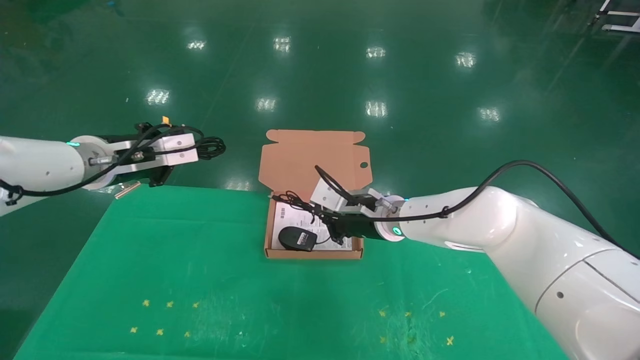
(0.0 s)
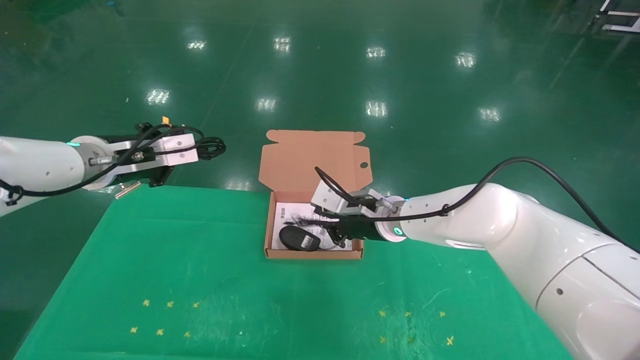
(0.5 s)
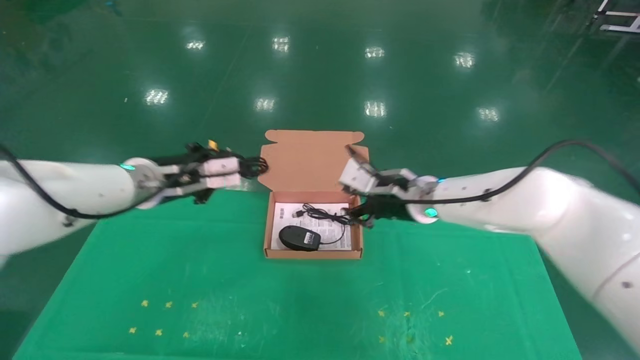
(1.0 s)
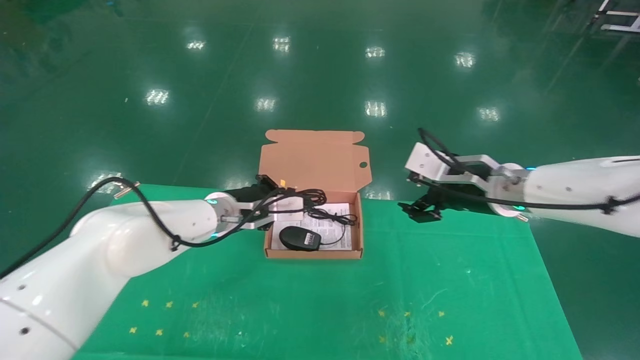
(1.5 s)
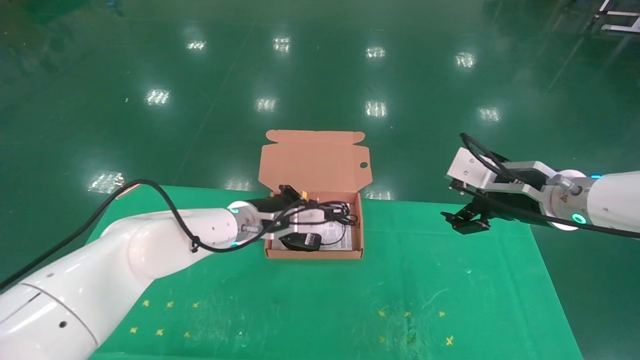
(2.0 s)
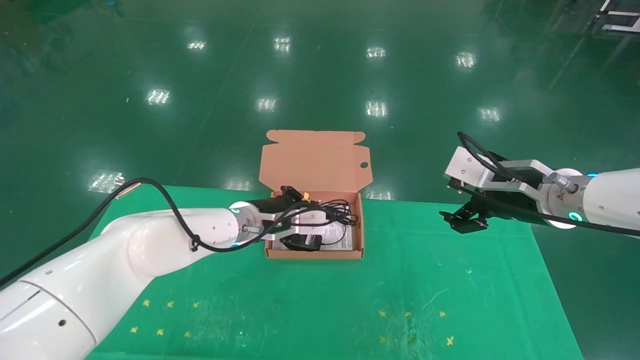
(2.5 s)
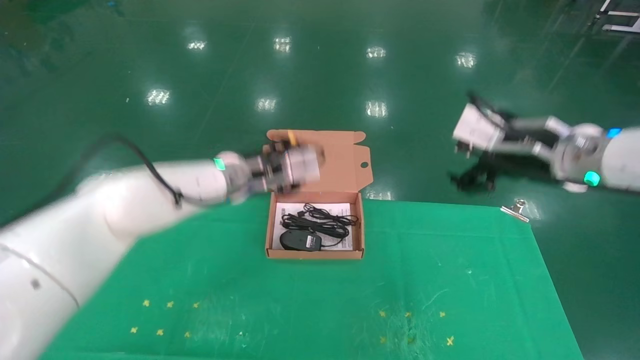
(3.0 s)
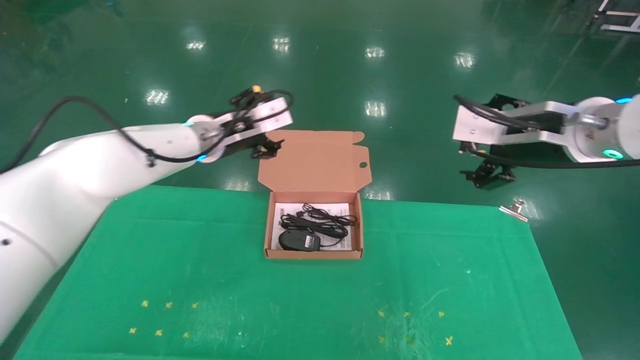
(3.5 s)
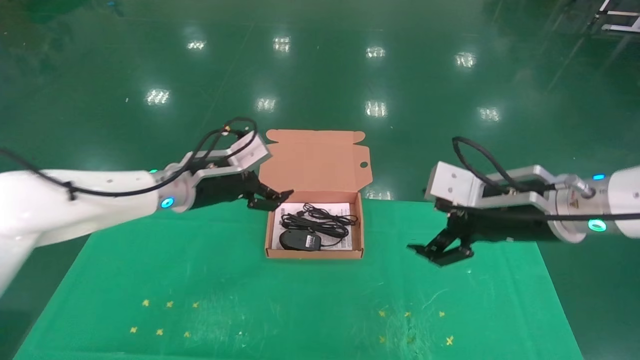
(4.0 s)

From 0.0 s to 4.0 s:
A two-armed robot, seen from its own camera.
Task of the whole recording: grasp data cable left put into box grasp mouse right put into box.
Step, from 0.0 s to 2.5 s: Place the mouse and power cord into the box.
From 0.0 s to 2.0 s: The right gripper is displaced to the right, backward and upward by about 25 cm, and opens its fingers. Meanwhile the left gripper goes some 20 cm to the right and downward.
From 2.0 s to 4.0 s: The left gripper moves upward and to the left, roughly 10 cm, and opens up.

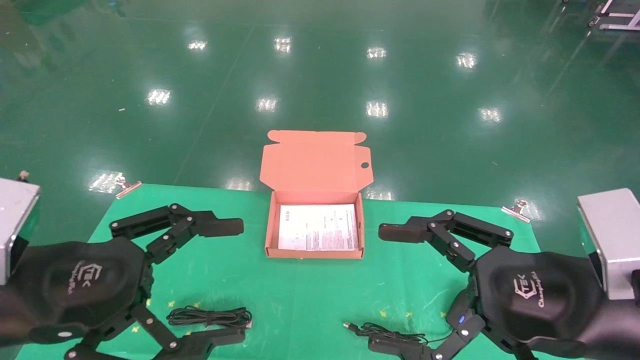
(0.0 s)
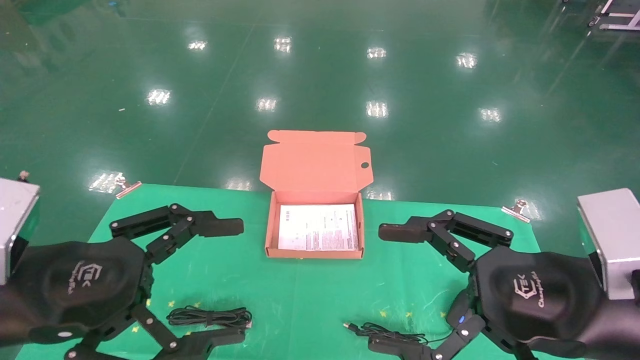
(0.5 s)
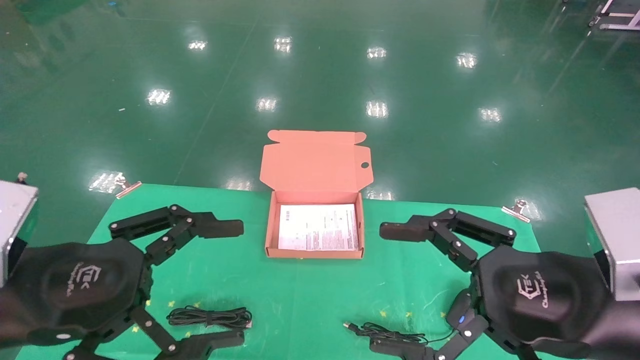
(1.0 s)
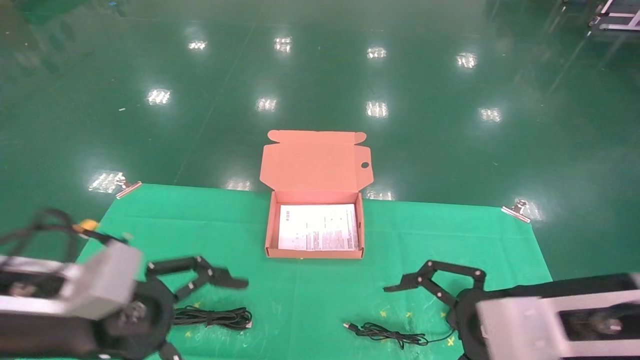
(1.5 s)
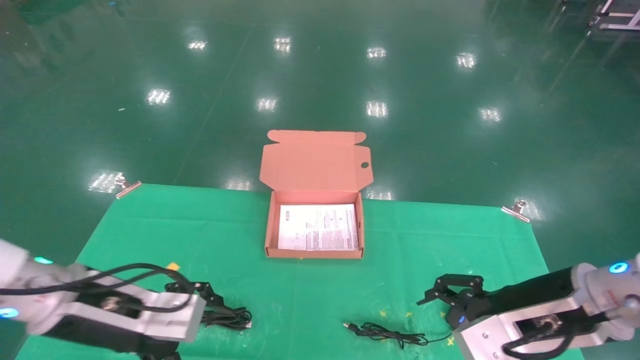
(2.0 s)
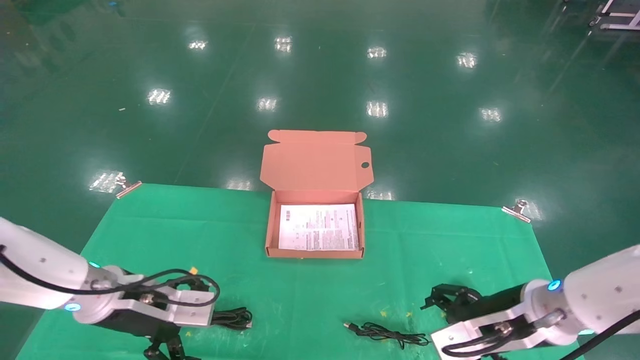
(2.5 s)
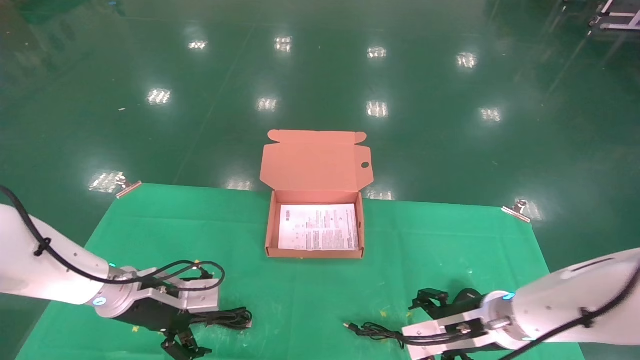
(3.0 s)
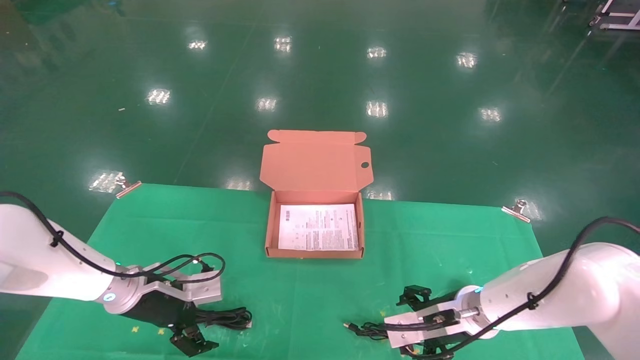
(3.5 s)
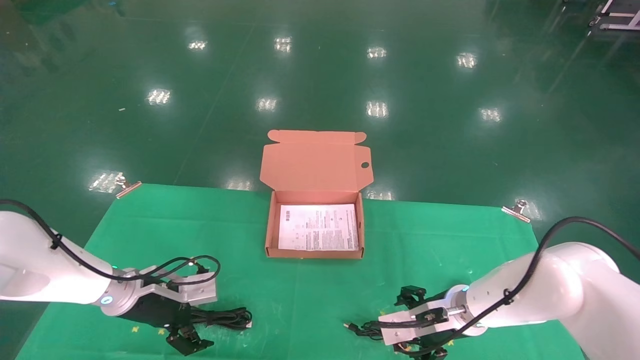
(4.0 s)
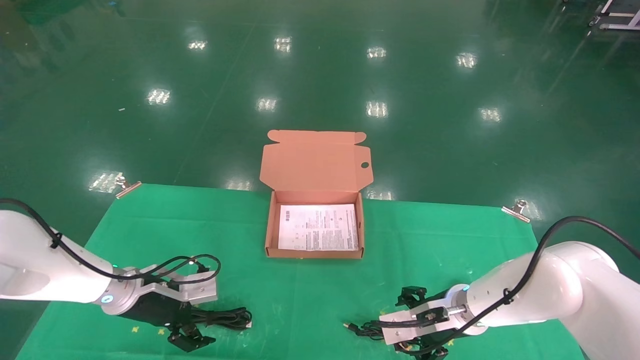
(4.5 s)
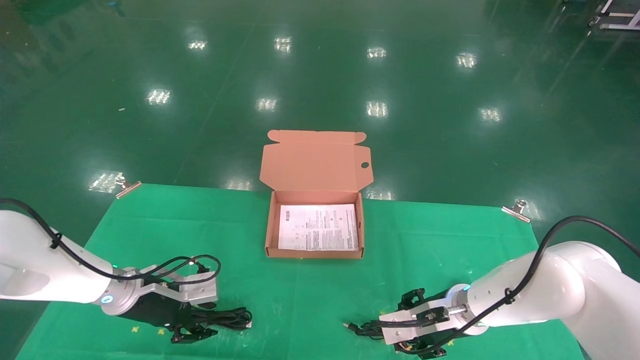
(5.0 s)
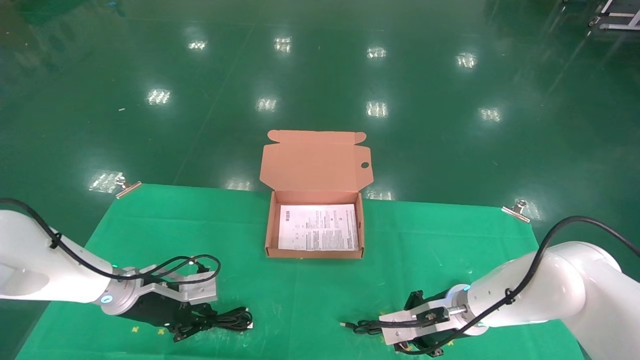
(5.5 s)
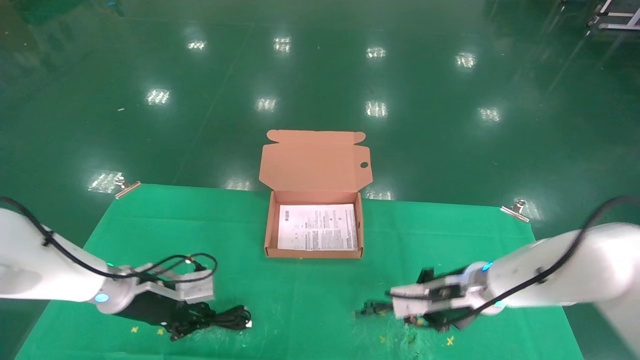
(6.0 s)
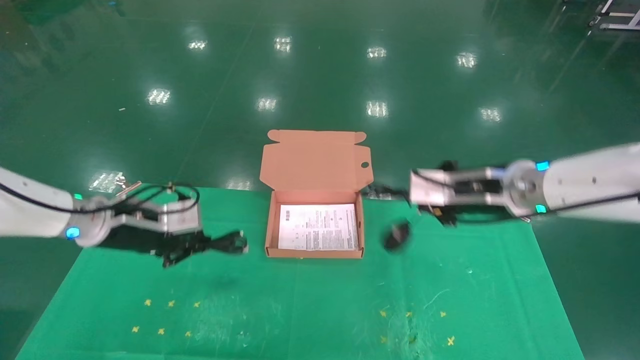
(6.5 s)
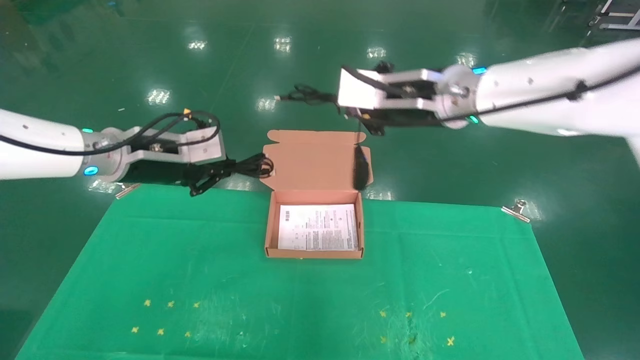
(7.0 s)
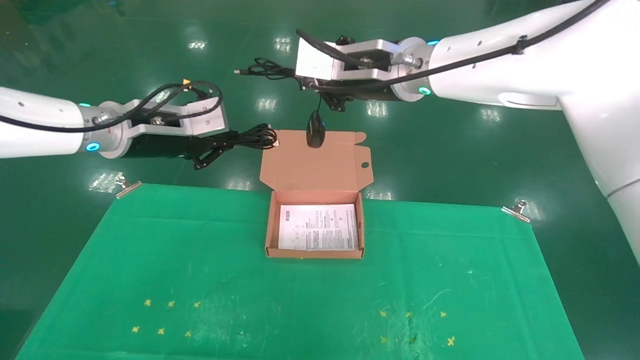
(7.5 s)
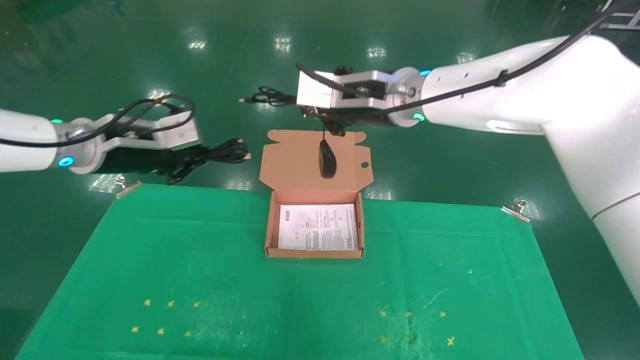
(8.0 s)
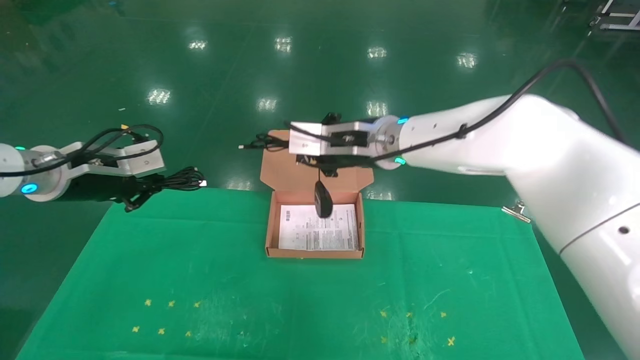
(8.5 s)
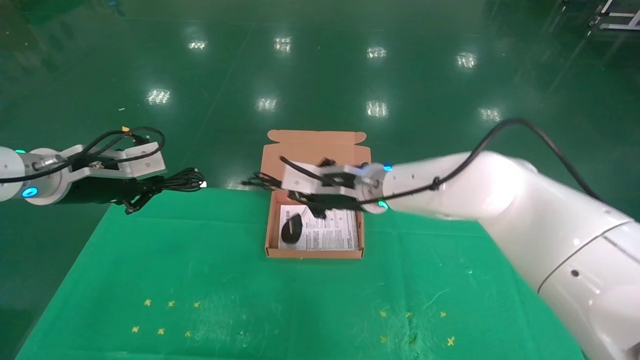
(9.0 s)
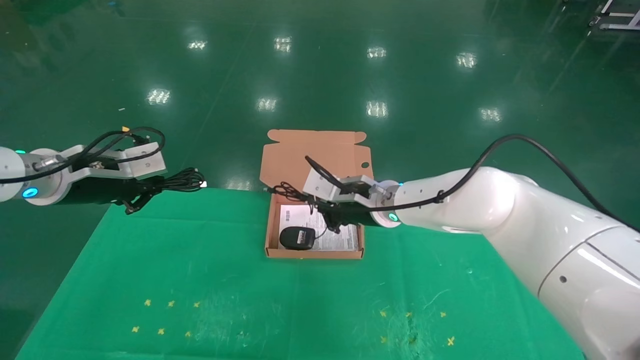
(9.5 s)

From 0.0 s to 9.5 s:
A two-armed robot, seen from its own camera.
Task of the whole recording: grasp data cable left put into box grasp mouse right put into box.
Step, from 1.5 s to 6.0 s: Grab and pick up both the mouse and power cord from the accessory packaging area at the same time.
From 0.0 s to 2.0 s: The two grippers go some 10 cm forward and downward.
From 2.0 s to 4.0 s: The left gripper shifts approximately 15 cm forward and downward, while the right gripper travels forward, downward and to the left by some 20 cm.
From 4.0 s to 5.5 s: The right gripper closes up. Meanwhile the left gripper closes up.
From 5.5 s to 7.5 s: The grippers both shift upward by roughly 30 cm.
From 7.5 s to 9.5 s: The left gripper moves to the left and downward, approximately 10 cm. The right gripper heads downward, covering about 20 cm.

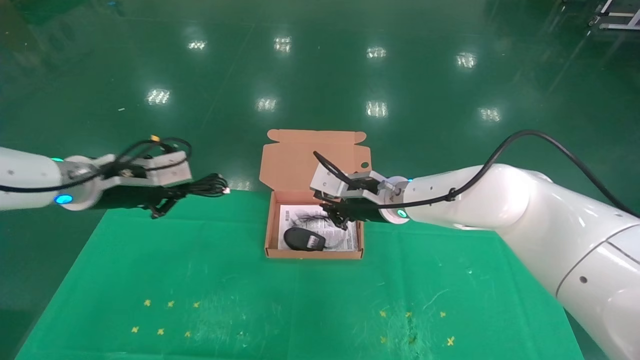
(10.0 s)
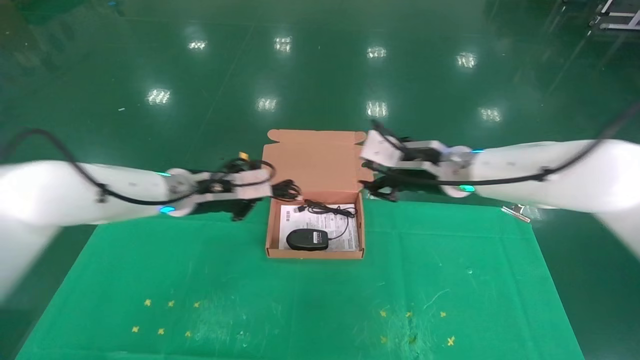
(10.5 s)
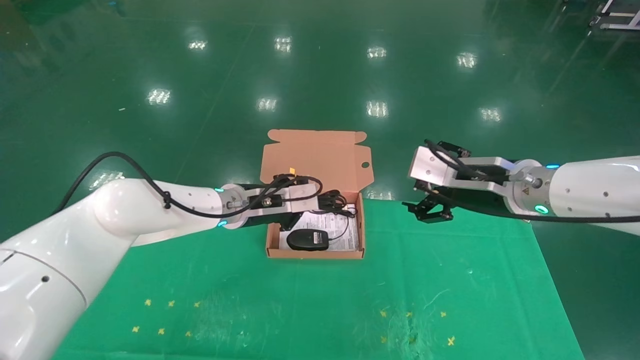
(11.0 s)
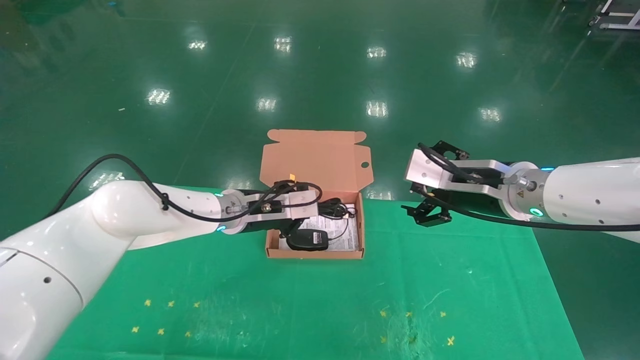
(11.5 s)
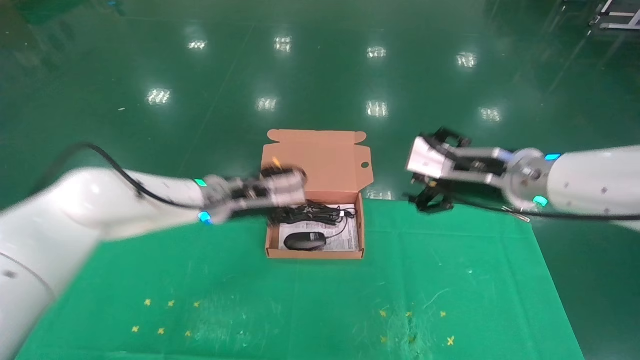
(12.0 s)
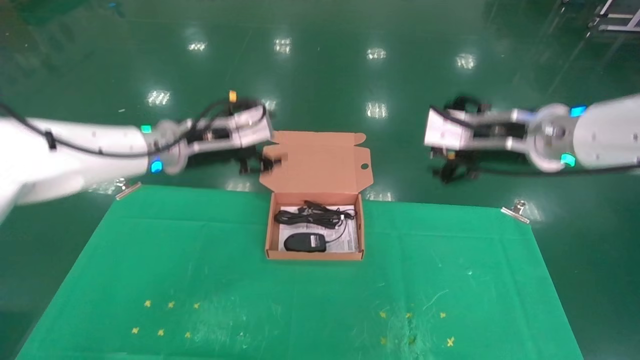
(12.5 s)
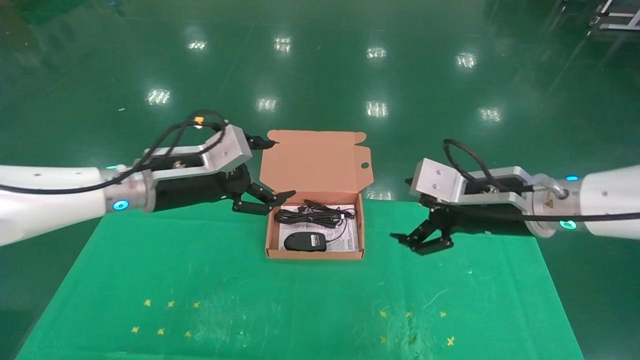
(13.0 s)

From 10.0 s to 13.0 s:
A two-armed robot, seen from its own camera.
Task of the whole recording: grasp data cable left put into box grasp mouse right put into box.
Step, from 10.0 s to 12.0 s: Place the mouse and power cord into the box.
From 10.0 s to 11.5 s: The left gripper shifts some 20 cm to the right, downward and forward. The right gripper is displaced to the right and backward by approximately 15 cm, and opens.
From 11.5 s to 13.0 s: The left gripper moves to the left, backward and upward, about 15 cm, and opens up.
